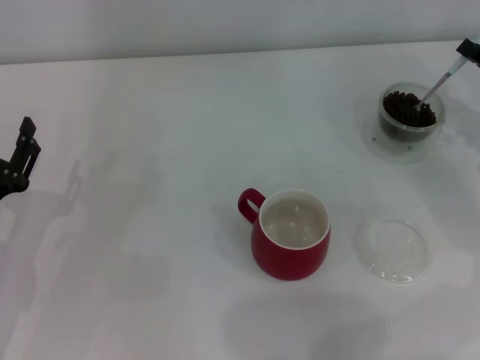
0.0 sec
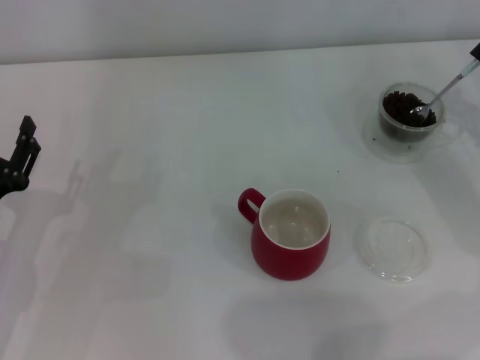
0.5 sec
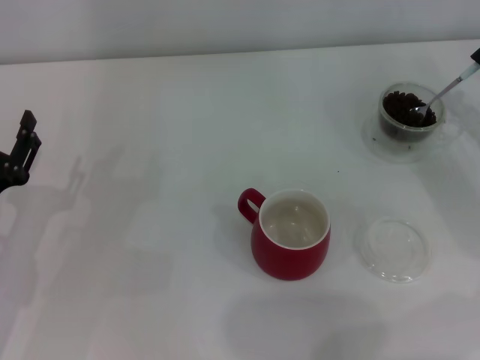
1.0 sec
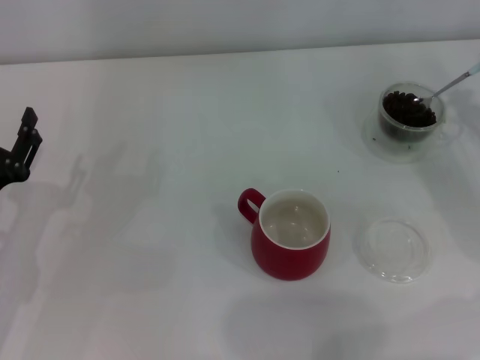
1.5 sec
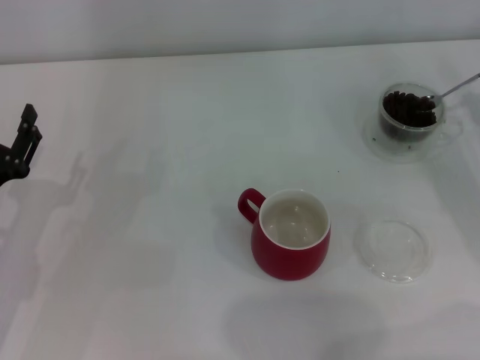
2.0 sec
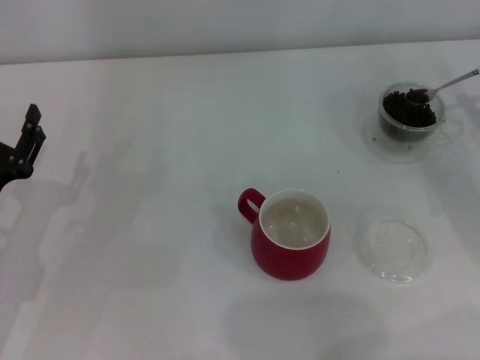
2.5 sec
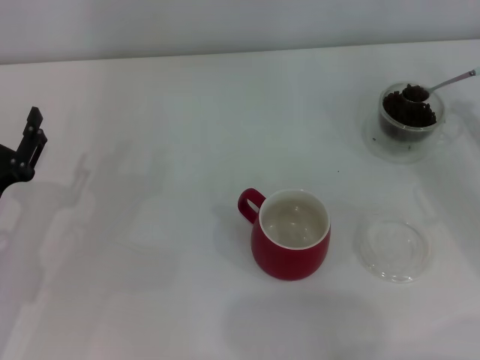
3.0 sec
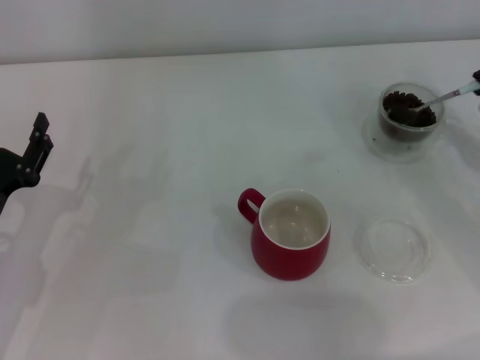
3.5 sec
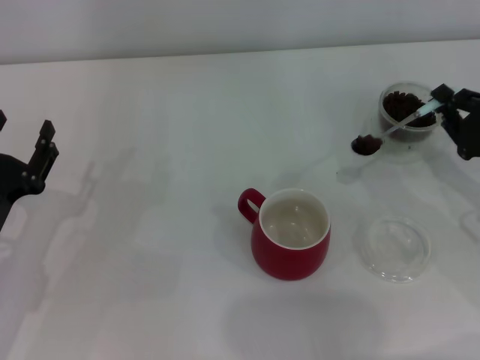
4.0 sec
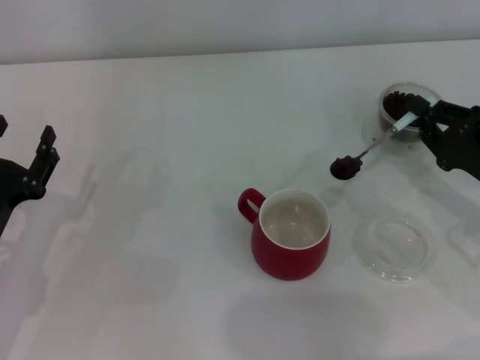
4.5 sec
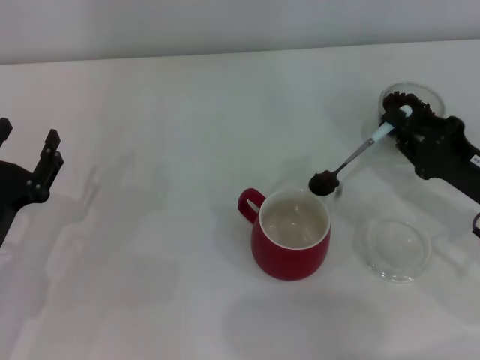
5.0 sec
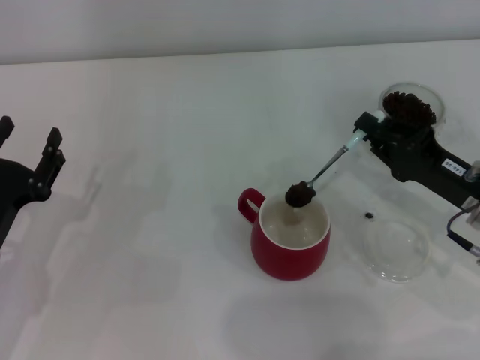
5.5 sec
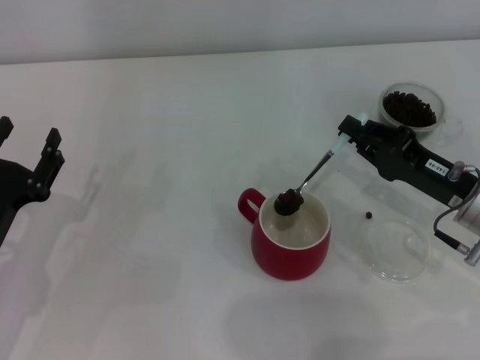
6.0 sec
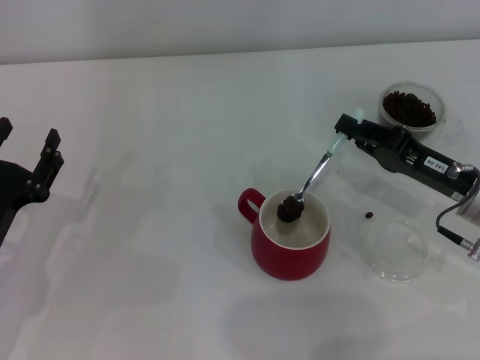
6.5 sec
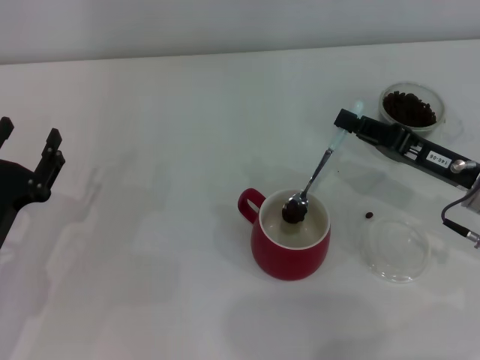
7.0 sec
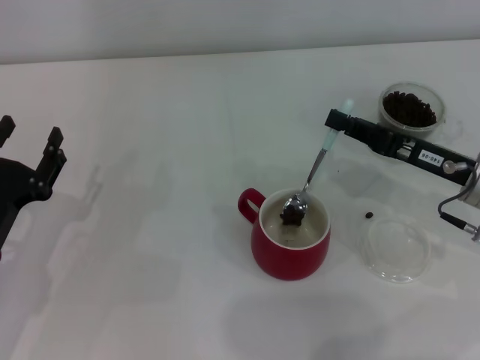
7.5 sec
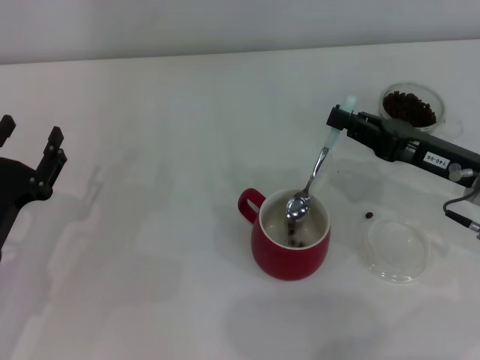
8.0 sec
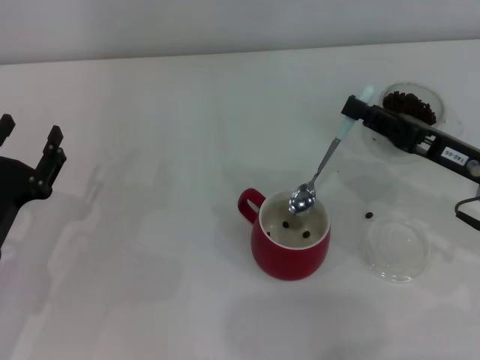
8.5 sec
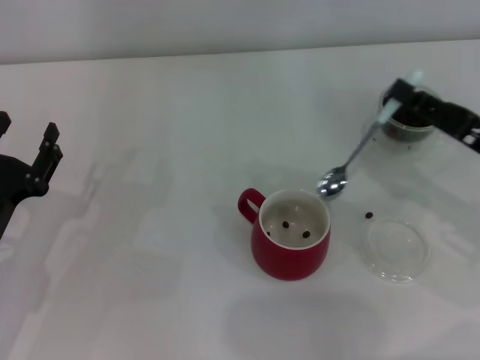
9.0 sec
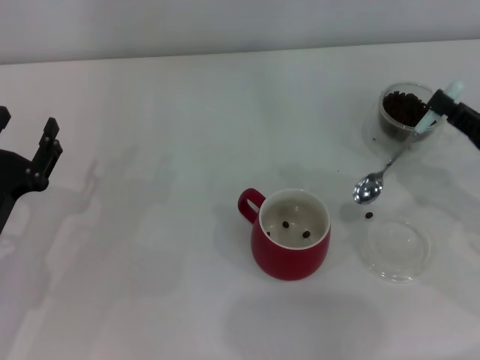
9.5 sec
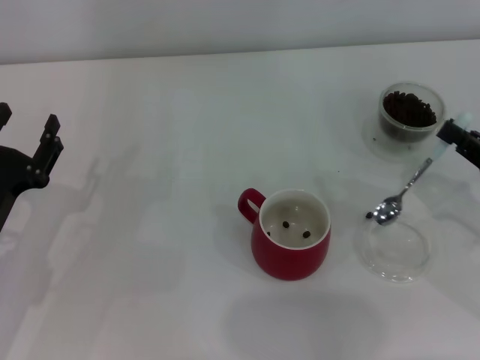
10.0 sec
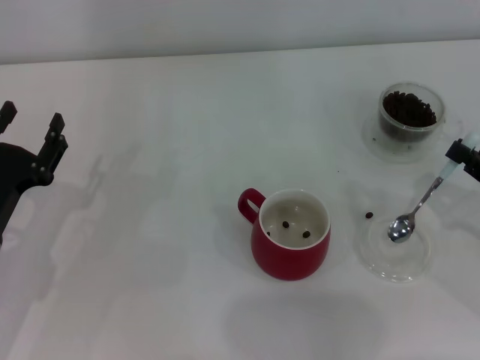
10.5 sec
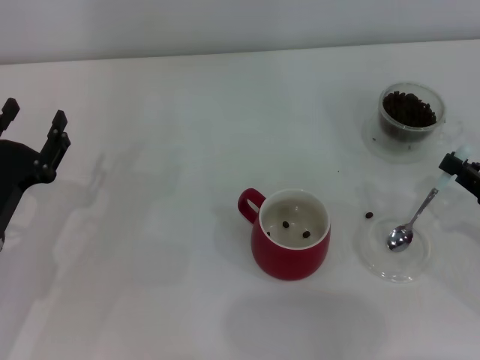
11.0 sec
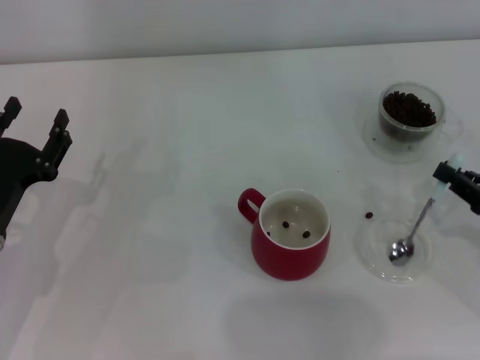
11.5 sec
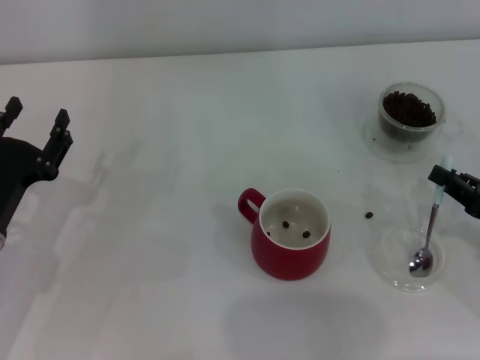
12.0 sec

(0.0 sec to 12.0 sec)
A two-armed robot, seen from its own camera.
Task of the whole recording: Use a blue spoon to take out the coffee beans from the glass and pour them into the red cup.
Step, 0.0 sec - 8.5 sec: Scoop a spoonful of beans into the cup with the right gripper.
2.0 sec - 4.0 sec: The right gripper is displaced to the left by about 5 cm.
4.0 sec - 6.0 sec: The right gripper heads to the left, covering some 5 cm.
8.0 sec - 10.0 sec: The right gripper travels to the right and backward by about 10 cm.
10.0 sec - 12.0 sec: There are only small adjustments of the grippers.

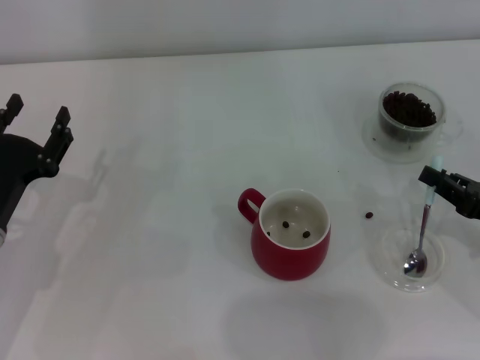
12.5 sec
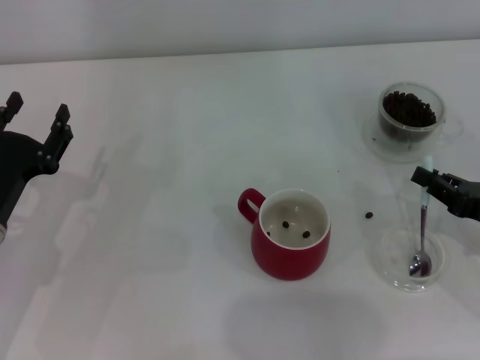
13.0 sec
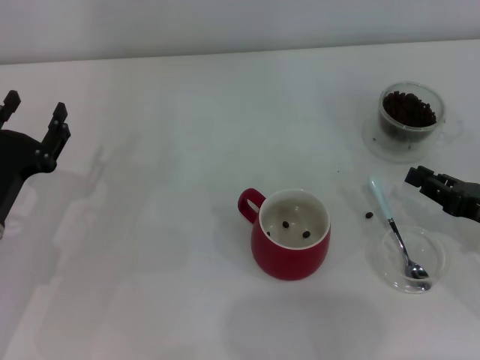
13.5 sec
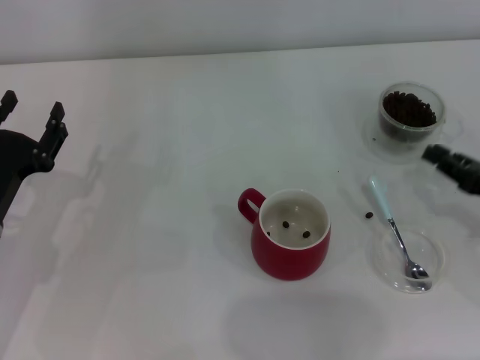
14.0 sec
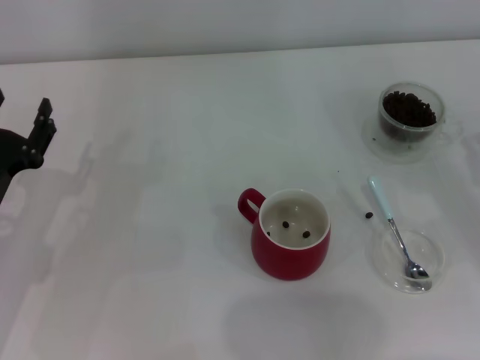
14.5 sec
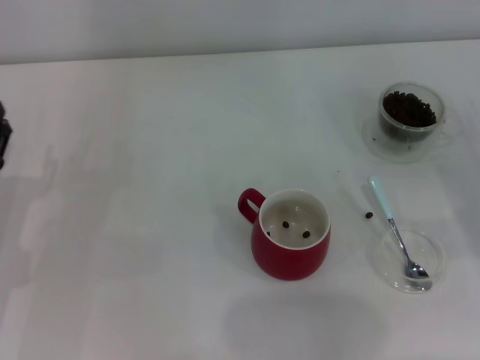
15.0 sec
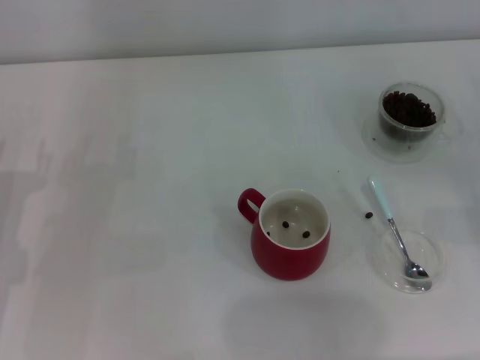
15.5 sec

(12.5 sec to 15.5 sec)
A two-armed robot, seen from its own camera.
Task of the whole recording: Use a blue spoon to take out the coffee beans from the glass and pour them into the red cup.
12.5 sec - 14.0 sec: The grippers move only a little.
14.0 sec - 15.5 sec: The right gripper moves to the right, some 5 cm, and opens.
